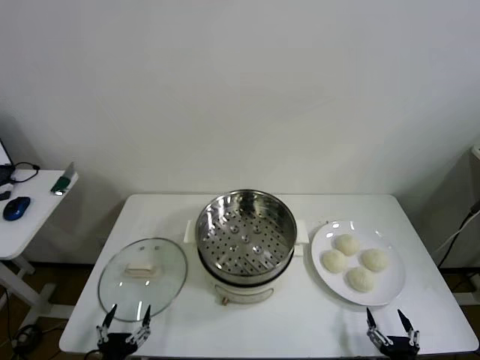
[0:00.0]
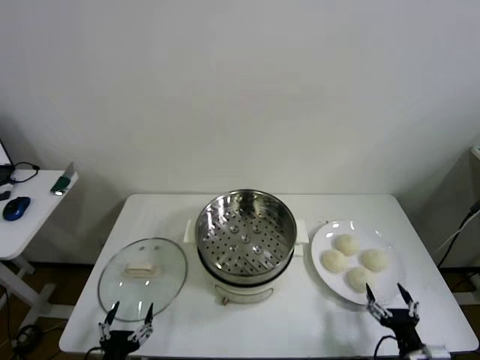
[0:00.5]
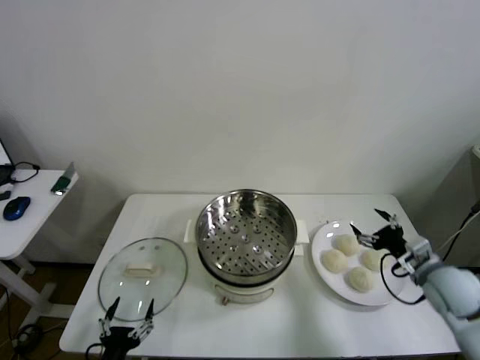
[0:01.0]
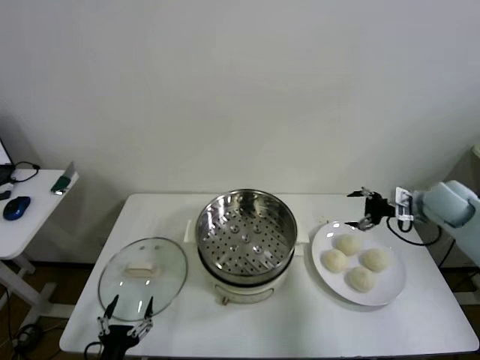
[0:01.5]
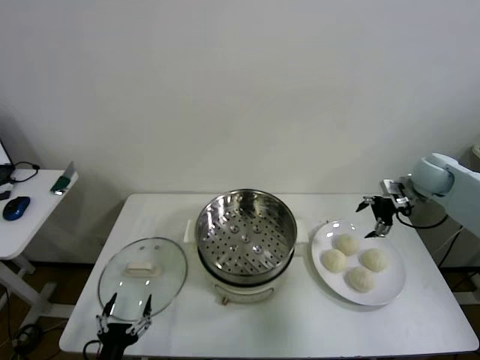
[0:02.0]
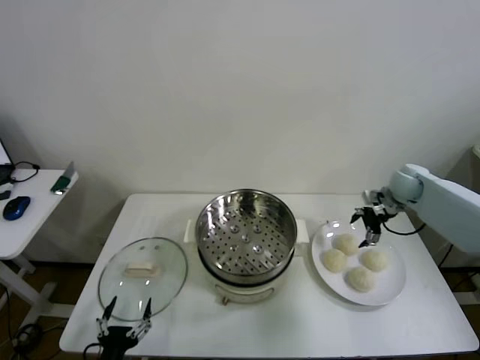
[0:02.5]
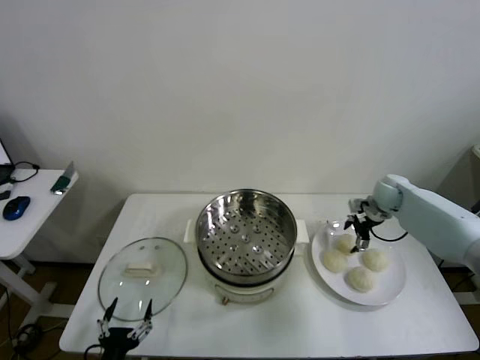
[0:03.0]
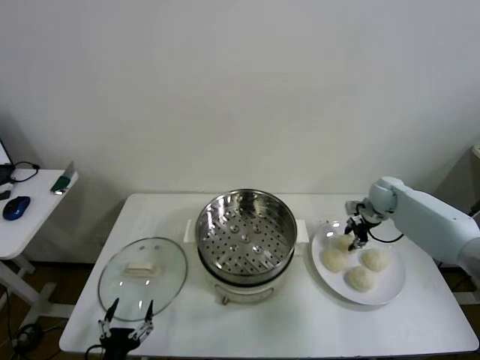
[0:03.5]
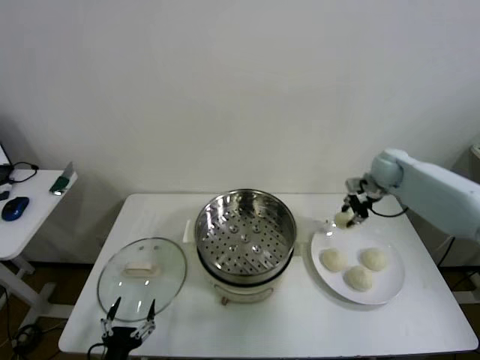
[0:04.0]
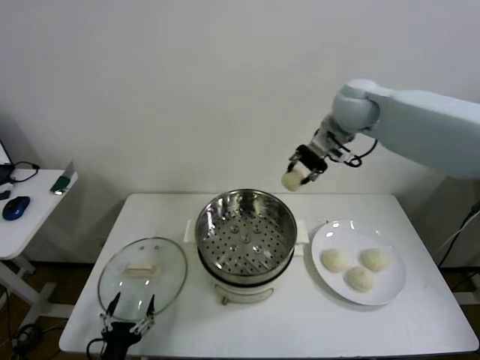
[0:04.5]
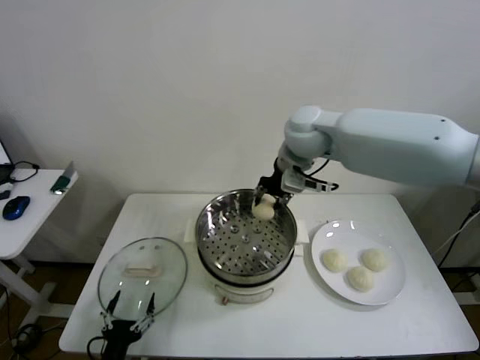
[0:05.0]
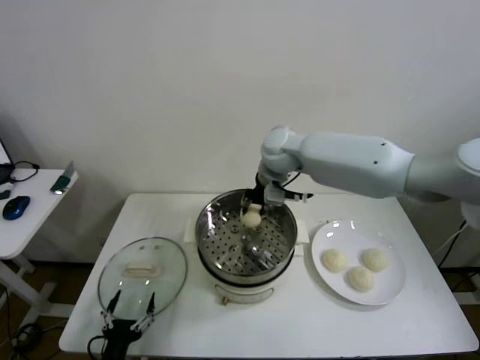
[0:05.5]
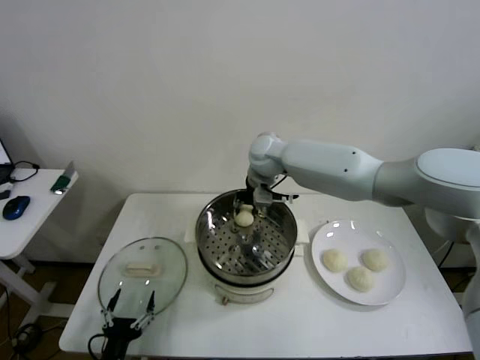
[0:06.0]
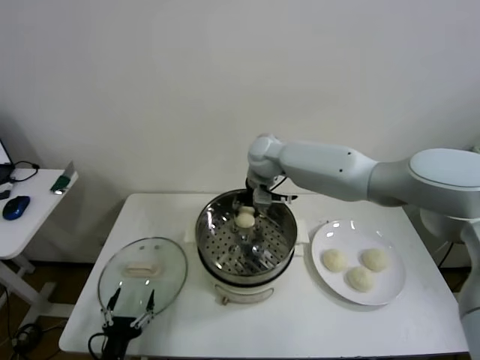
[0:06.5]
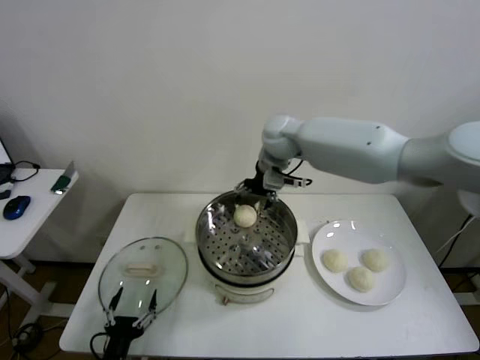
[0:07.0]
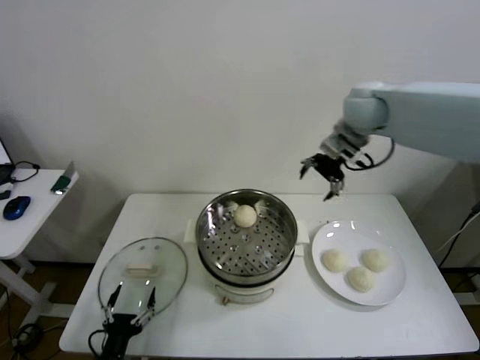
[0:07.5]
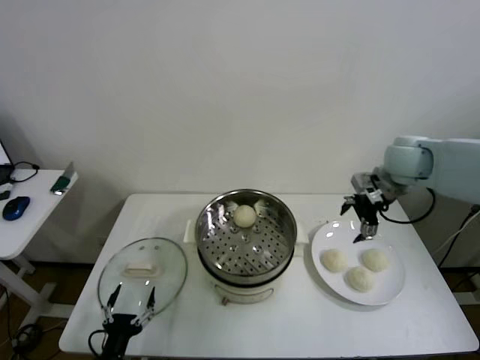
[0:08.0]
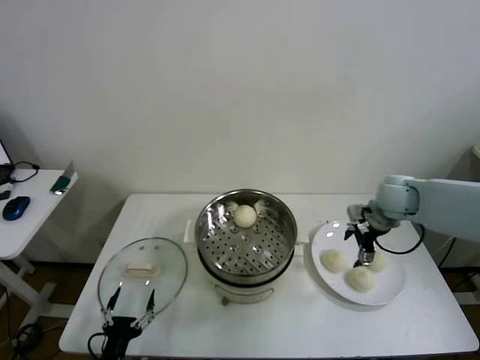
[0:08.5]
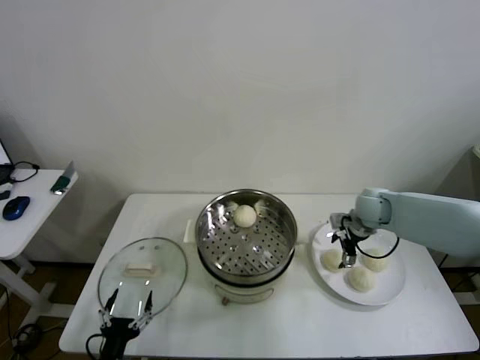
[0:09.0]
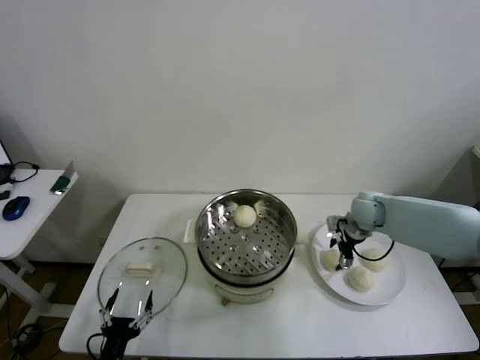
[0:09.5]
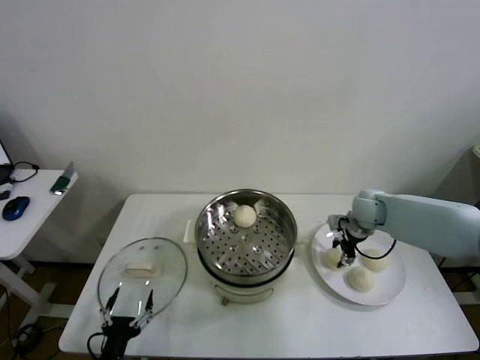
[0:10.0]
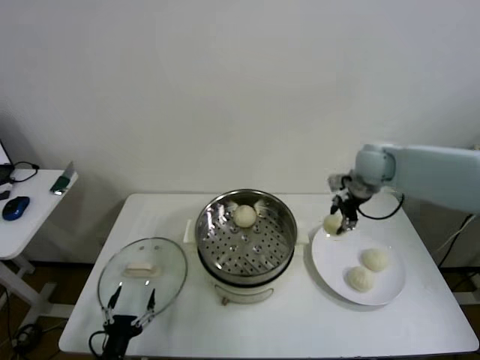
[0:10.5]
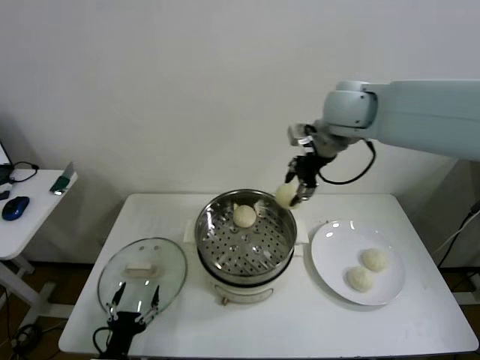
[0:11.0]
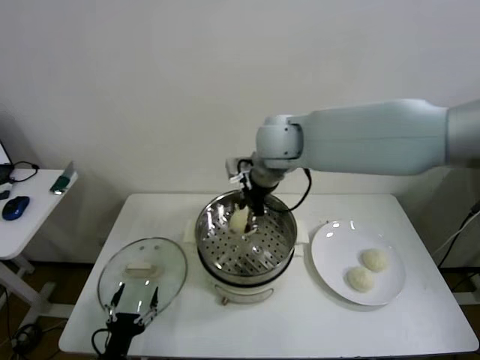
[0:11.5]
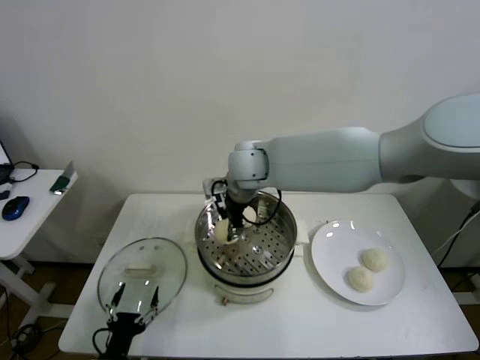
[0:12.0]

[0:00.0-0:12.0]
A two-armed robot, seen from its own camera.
Step, 0.0 to 3.0 s: Grasp the baozi in the plate with right gripper.
Step, 3.5 to 6.5 s: Place the baozi on the steamer with right gripper.
Step, 7.0 to 9.5 s: Grasp the baozi in the plate with right gripper.
2.0 to 4.0 s: The right gripper shifts about 10 cm to the left and forward, travels downward and back again, some 10 cm each way, and closes.
4.0 to 6.0 s: The right gripper goes roughly 30 cm to the left.
6.0 to 8.0 s: The right gripper goes roughly 30 cm to the right, and opens its fingers.
8.0 to 10.0 s: The right gripper heads downward, covering some 15 cm, and closes.
10.0 to 12.0 s: The right gripper goes some 35 cm to the left and upward.

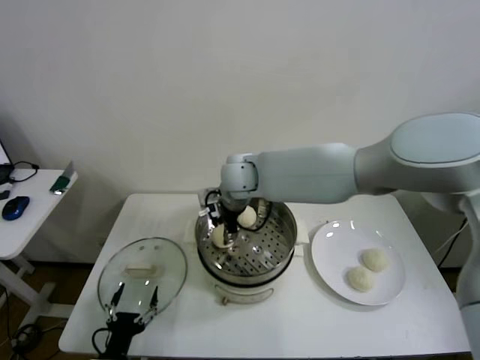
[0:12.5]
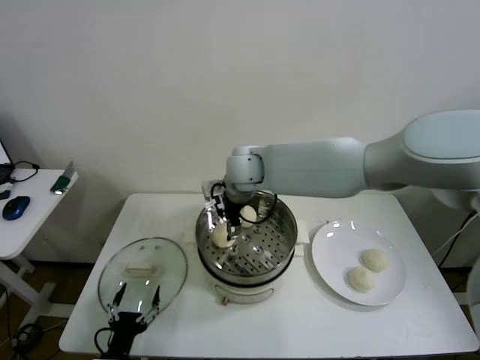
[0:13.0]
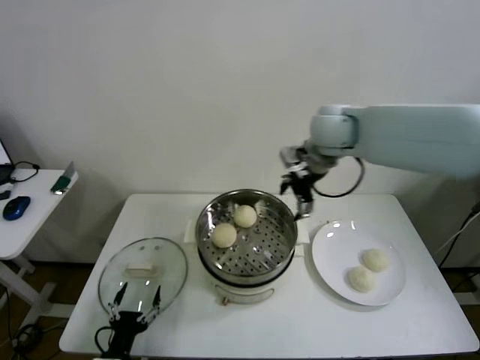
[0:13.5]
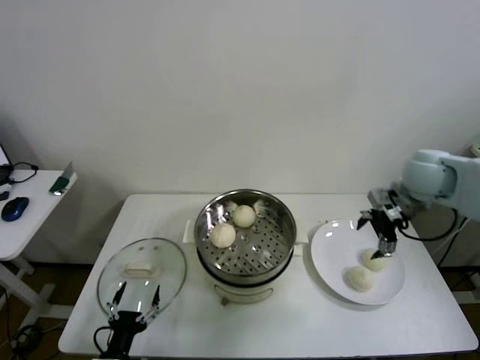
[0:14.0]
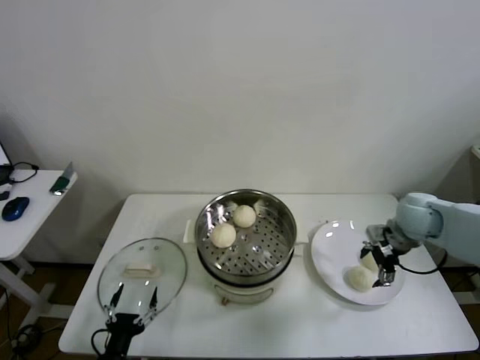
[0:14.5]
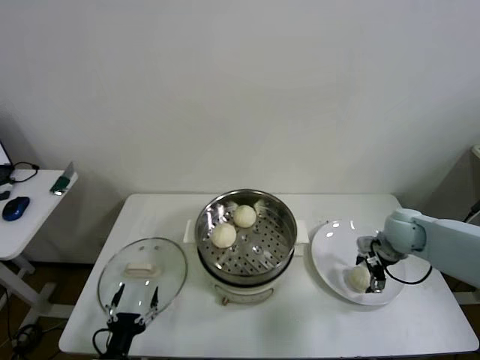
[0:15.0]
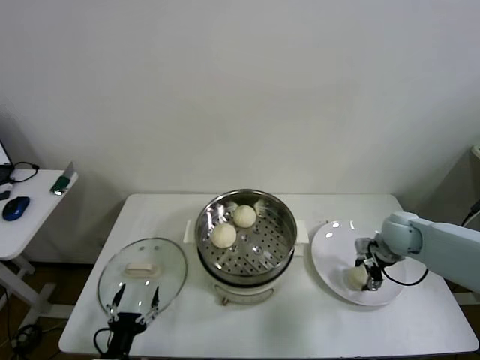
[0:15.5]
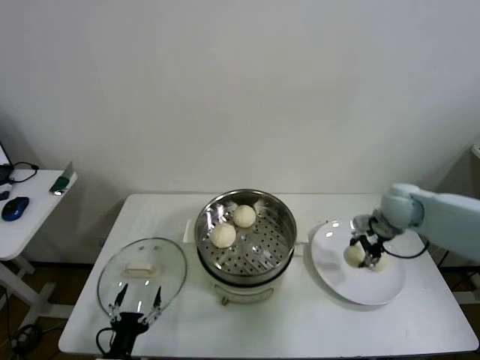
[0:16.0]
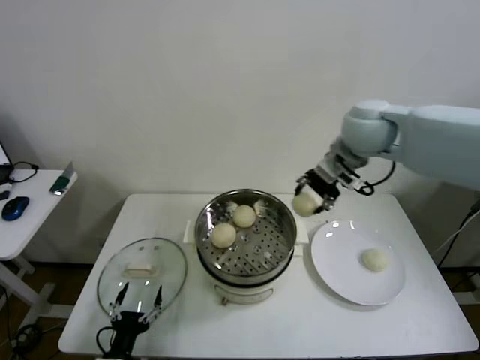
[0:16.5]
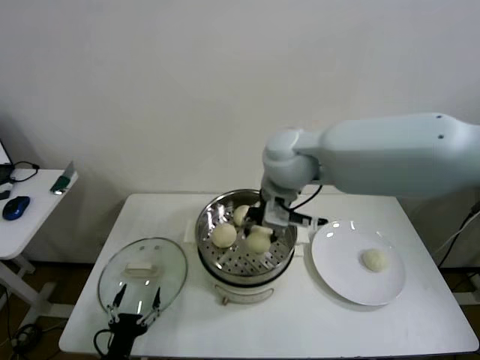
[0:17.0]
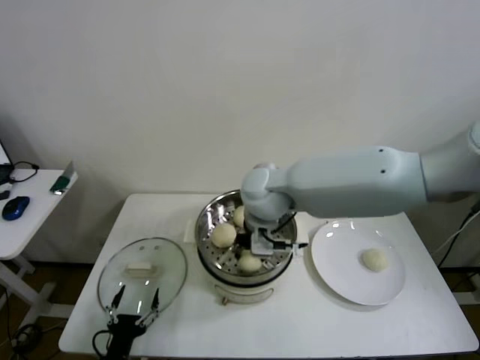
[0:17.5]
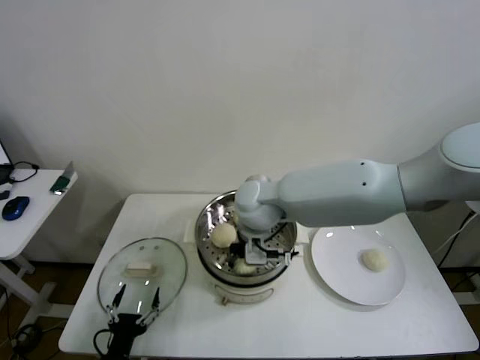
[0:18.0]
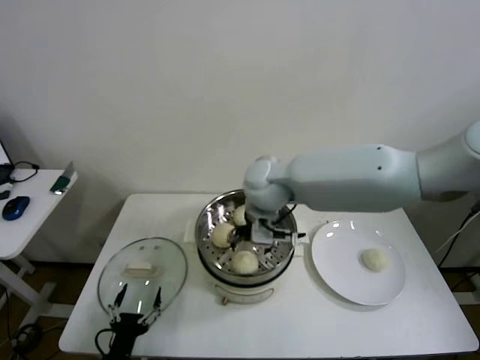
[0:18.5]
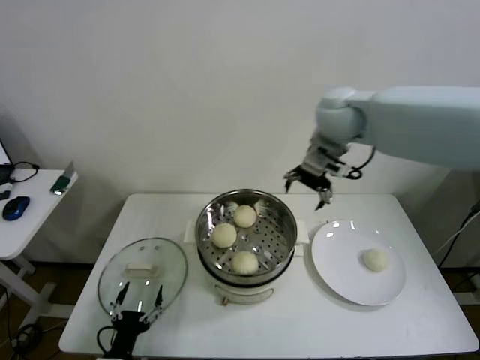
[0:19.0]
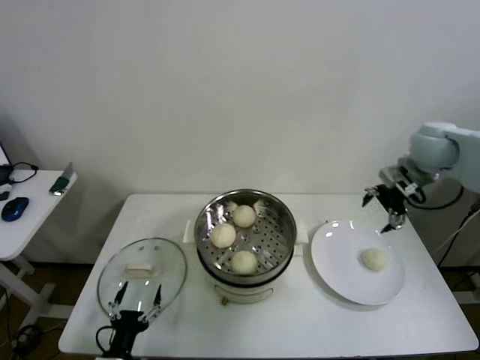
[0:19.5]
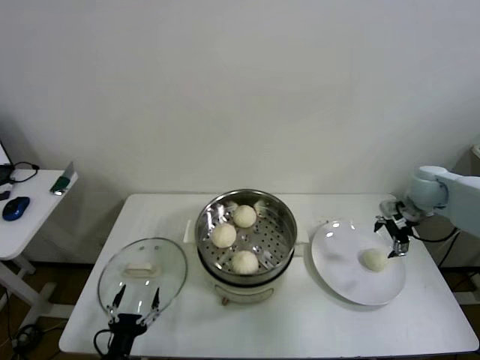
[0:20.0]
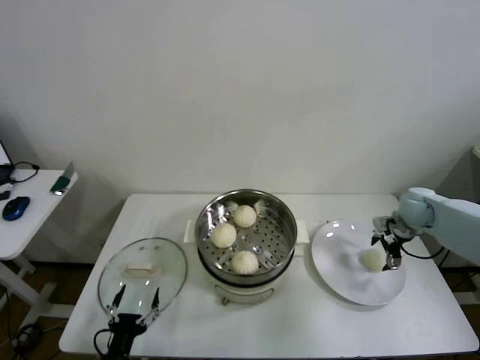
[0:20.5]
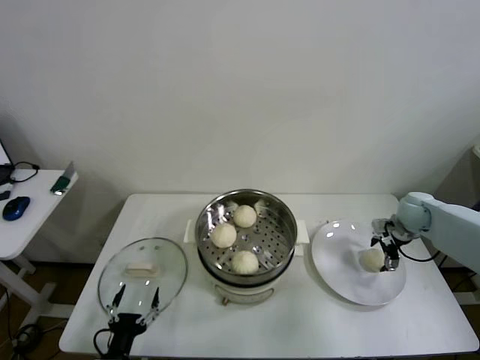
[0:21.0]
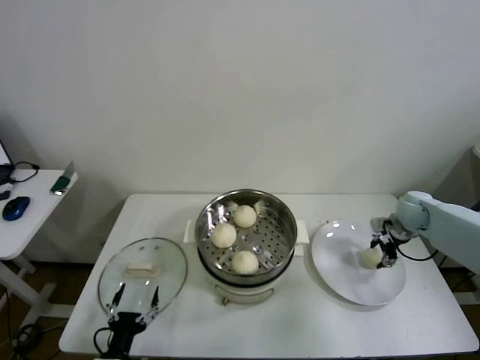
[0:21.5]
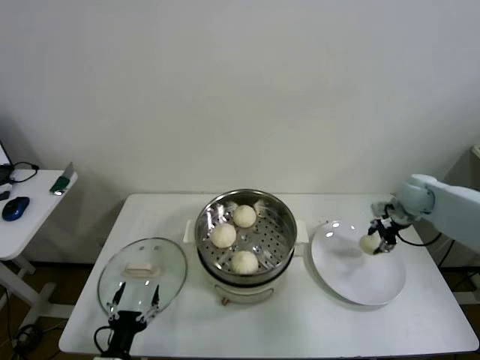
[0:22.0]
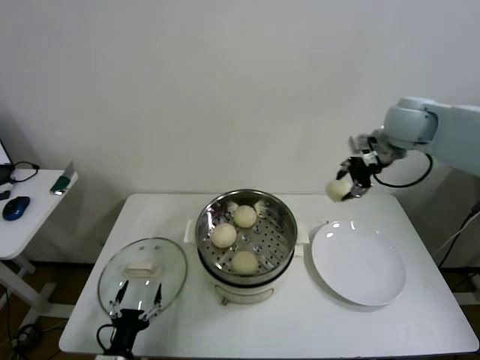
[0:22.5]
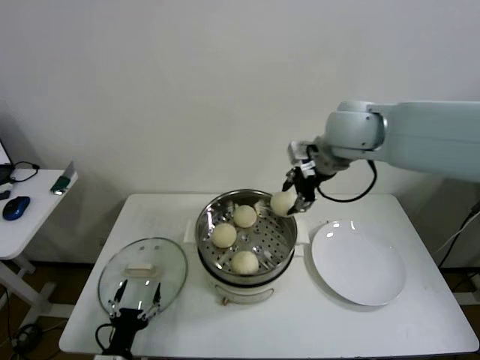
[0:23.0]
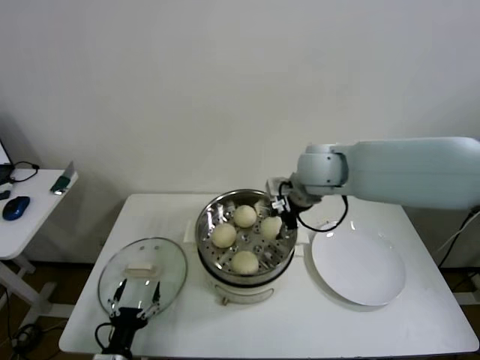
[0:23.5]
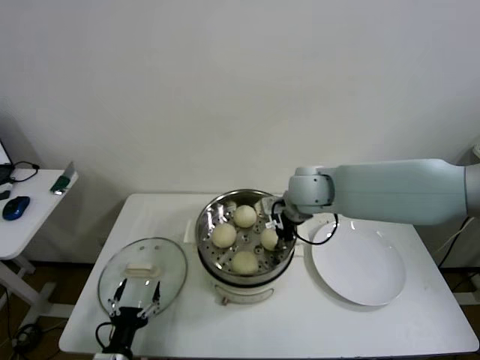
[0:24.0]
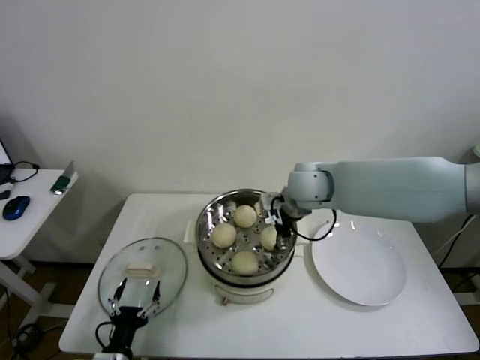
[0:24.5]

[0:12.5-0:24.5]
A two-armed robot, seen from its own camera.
Step, 13.0 to 15.5 s: Grasp the baozi in the plate with right gripper.
Step, 16.0 to 18.5 s: Place the baozi on the steamer with right gripper.
Step, 19.0 to 21.0 s: Grasp the baozi in the plate with right gripper.
Step, 21.5 to 24.5 s: Place the baozi on the steamer with right gripper.
12.5 to 14.5 s: The right gripper goes approximately 40 cm to the right, and opens.
14.5 to 16.5 s: The right gripper goes about 30 cm upward and to the left, and closes.
16.5 to 18.5 s: The right gripper moves to the left and downward, some 20 cm, and opens its fingers.
18.5 to 20.5 s: The right gripper is displaced to the right by about 40 cm.
20.5 to 22.5 s: The right gripper moves upward and to the left, roughly 25 cm, and closes its fingers.
22.5 to 24.5 s: The right gripper heads to the left and downward, covering approximately 20 cm, and opens up.

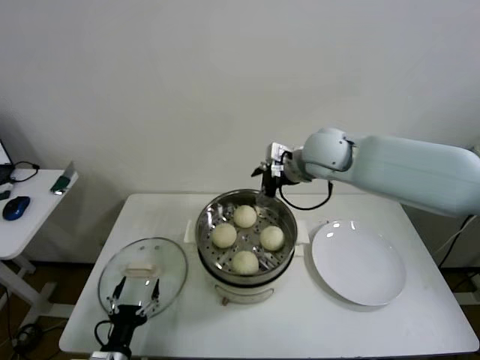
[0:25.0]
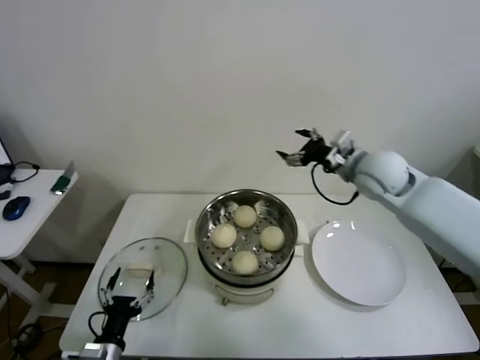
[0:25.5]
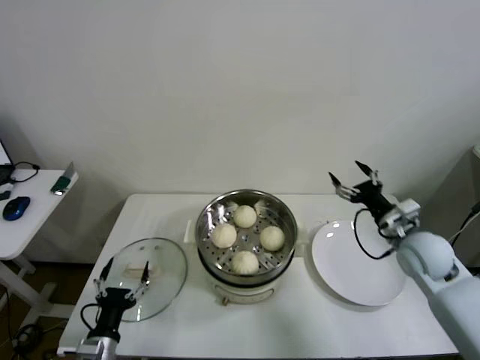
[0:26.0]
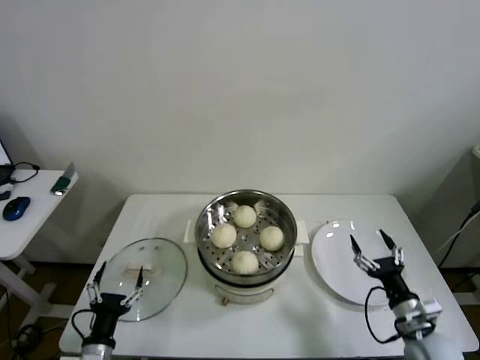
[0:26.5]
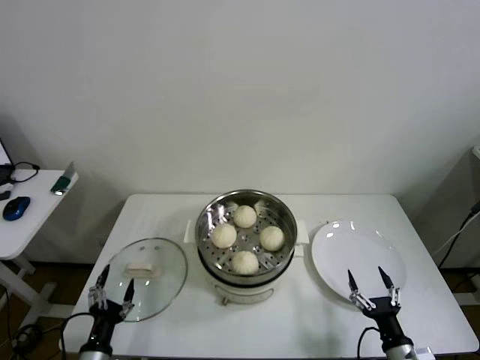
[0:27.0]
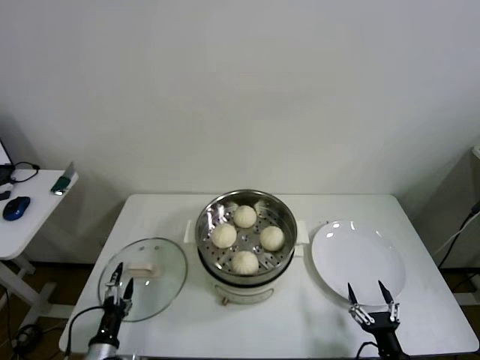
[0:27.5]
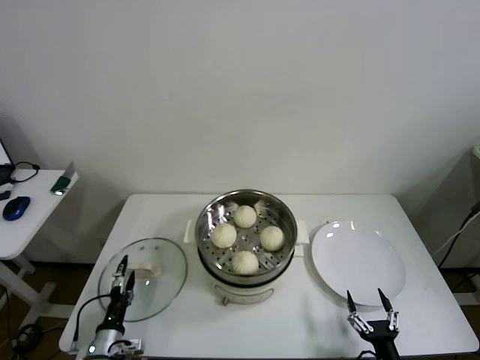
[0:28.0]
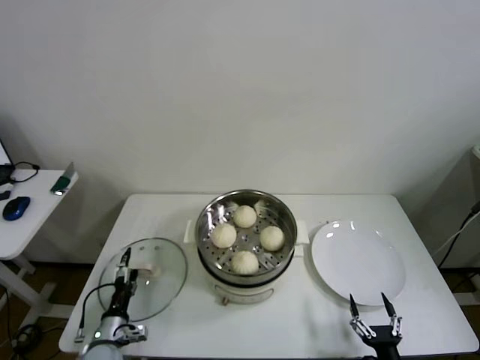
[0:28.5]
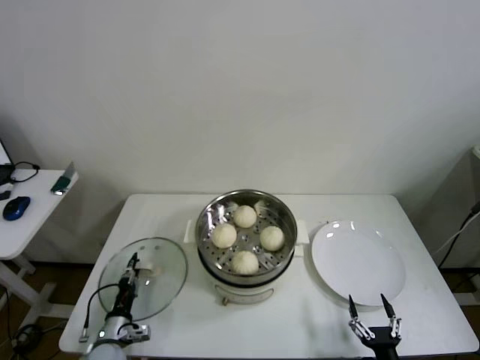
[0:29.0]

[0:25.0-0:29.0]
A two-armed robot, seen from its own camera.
25.0 to 27.0 s: The right gripper heads downward, backward and to the right, covering roughly 50 cm.
27.0 to 29.0 s: The left gripper is displaced forward and downward by roughly 10 cm, and closes its fingers. Meanwhile the right gripper heads backward, covering about 5 cm.
